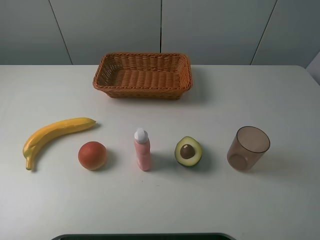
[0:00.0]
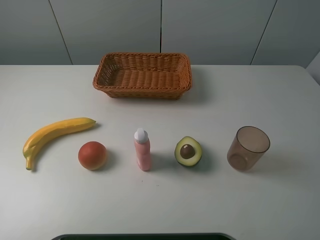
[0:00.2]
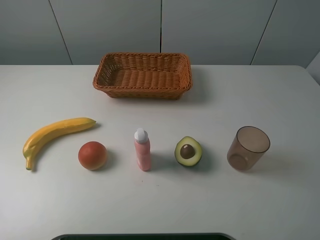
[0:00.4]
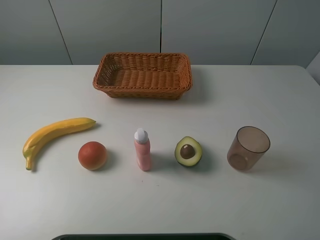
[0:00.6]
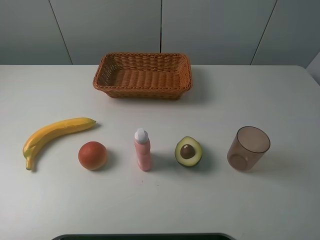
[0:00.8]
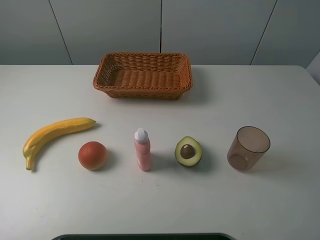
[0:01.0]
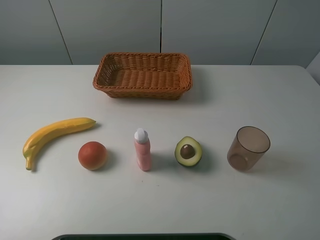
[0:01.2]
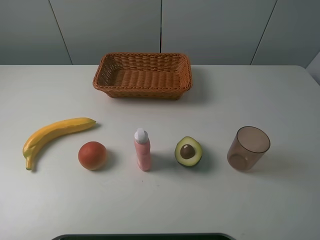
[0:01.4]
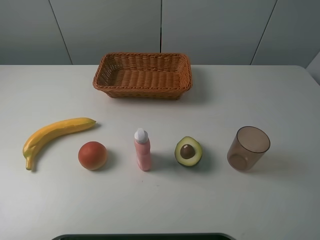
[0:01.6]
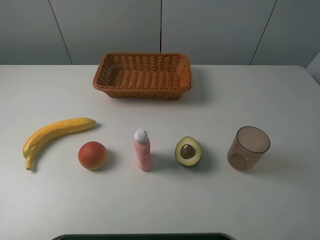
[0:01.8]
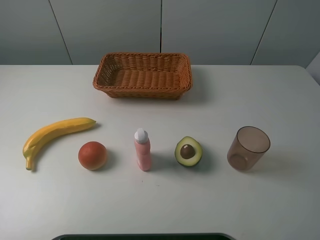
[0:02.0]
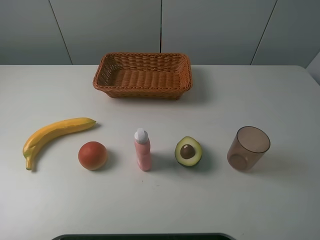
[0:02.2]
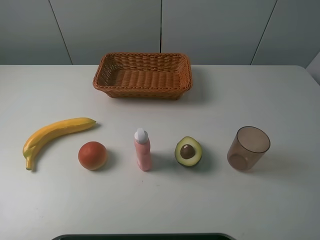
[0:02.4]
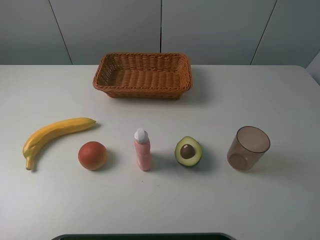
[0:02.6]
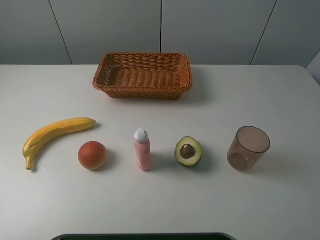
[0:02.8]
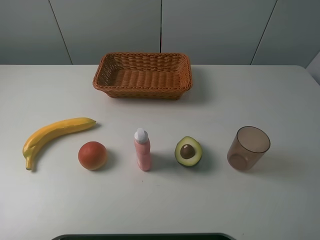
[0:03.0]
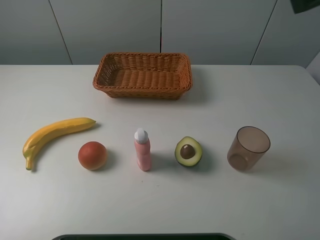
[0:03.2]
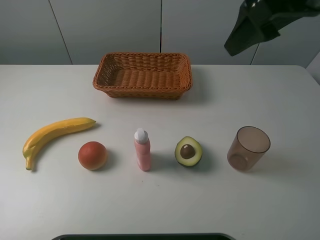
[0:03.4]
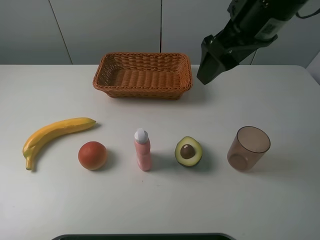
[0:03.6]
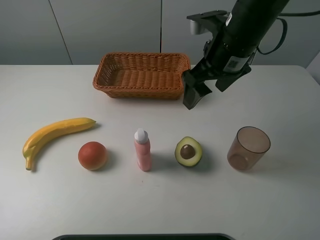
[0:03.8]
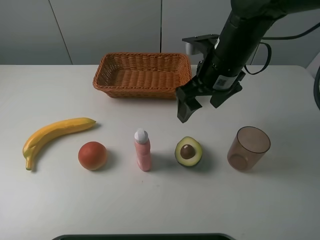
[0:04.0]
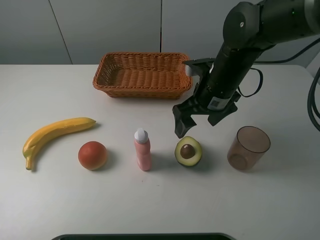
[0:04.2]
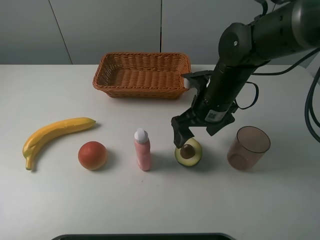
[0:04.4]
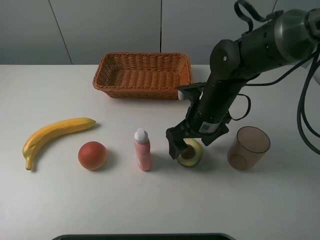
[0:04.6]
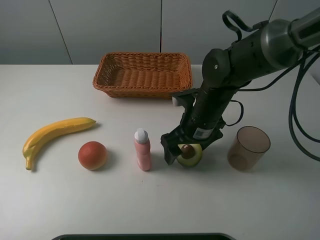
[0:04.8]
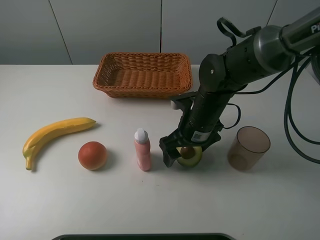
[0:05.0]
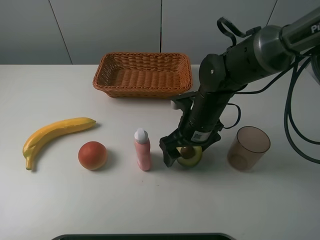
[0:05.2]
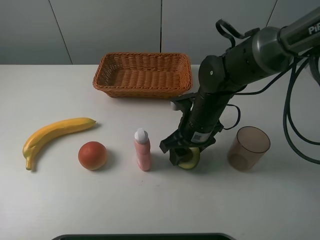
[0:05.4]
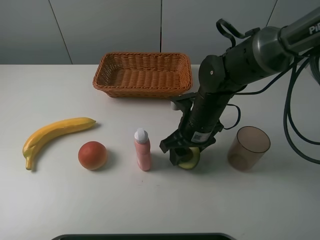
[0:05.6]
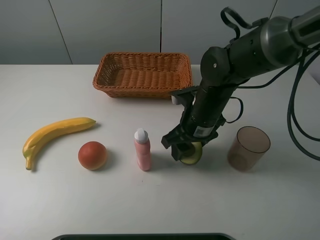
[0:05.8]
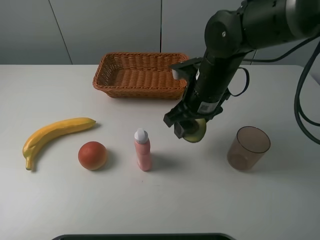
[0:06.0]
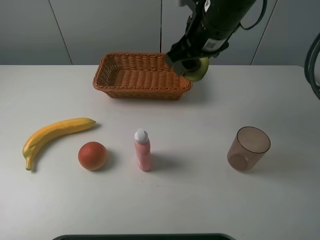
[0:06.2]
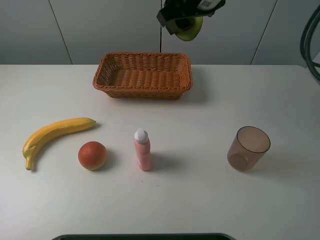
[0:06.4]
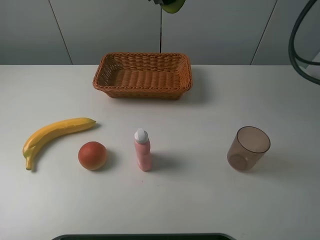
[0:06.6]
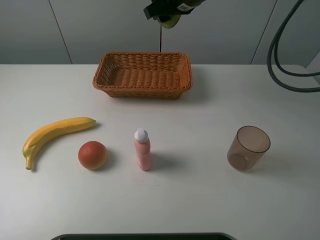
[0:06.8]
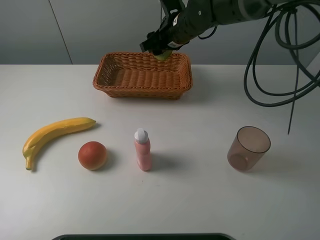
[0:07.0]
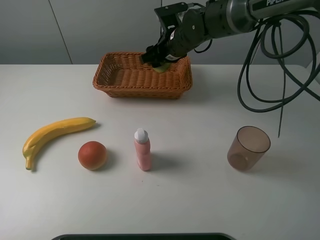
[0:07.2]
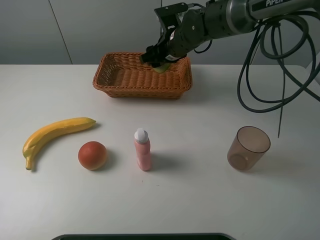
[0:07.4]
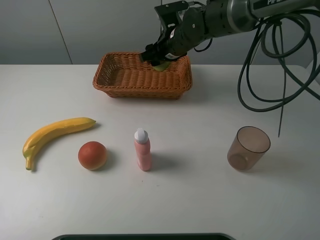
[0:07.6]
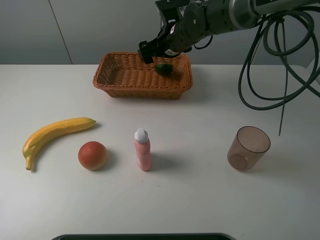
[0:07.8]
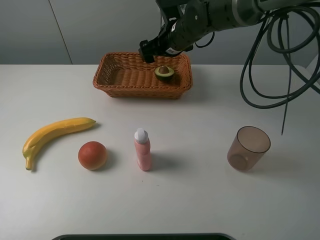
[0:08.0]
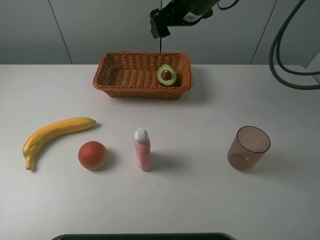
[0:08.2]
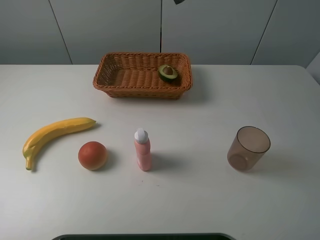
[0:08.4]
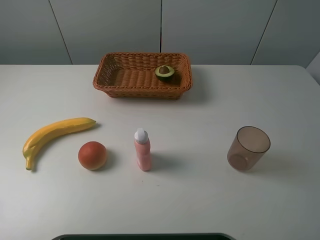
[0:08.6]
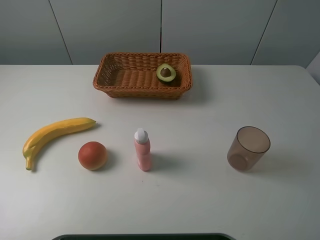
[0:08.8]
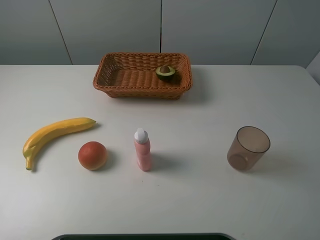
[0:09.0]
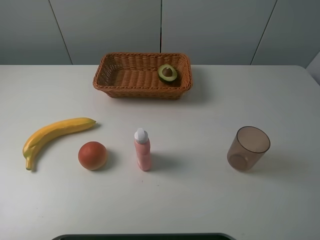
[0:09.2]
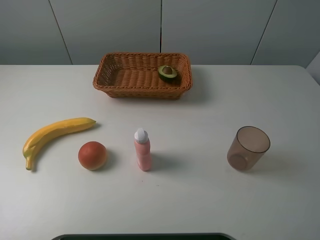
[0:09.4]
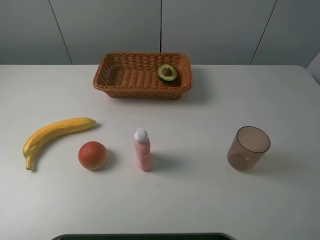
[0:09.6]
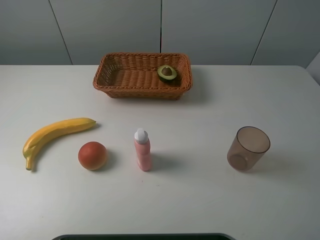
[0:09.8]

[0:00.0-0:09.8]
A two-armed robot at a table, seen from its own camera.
Task of the whole recording: randomly pick up an item from the table and put it in the basket.
Step, 0:00.0 to 0:05.4: Grasp the avocado with the right gripper.
Step, 0:05.6 to 0:08.0: Place the avocado into the basket with the right gripper.
0:00.0 to 0:01.4: Both grippers stay put.
0:02.8 to 0:04.2: The right gripper shifts approximately 35 cm downward, forward and to the left.
0:04.2 to 0:05.6: The right gripper heads downward, covering roughly 5 cm, and closes up.
0:05.6 to 0:07.0: The right gripper goes roughly 20 cm forward and upward.
0:07.0 to 0:08.4: The right gripper shifts approximately 20 cm upward and backward, and opens.

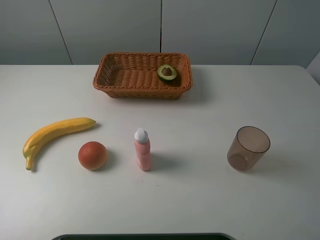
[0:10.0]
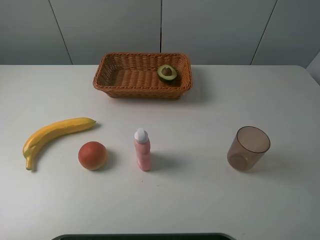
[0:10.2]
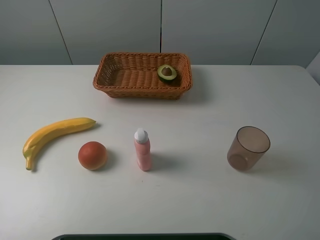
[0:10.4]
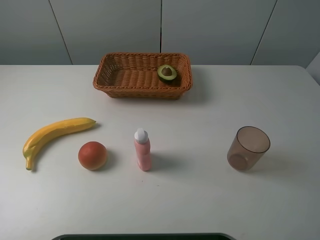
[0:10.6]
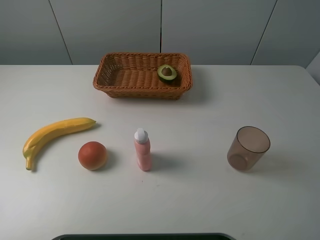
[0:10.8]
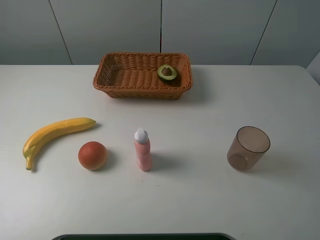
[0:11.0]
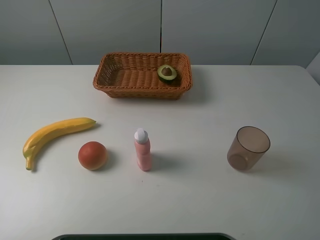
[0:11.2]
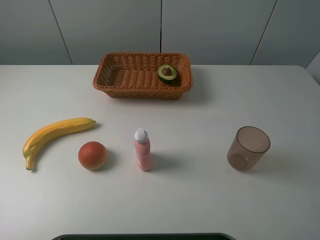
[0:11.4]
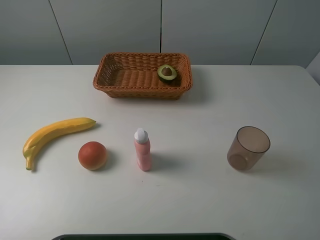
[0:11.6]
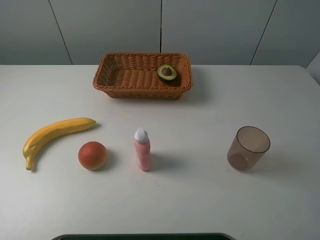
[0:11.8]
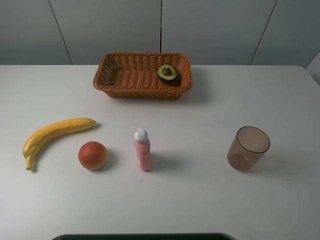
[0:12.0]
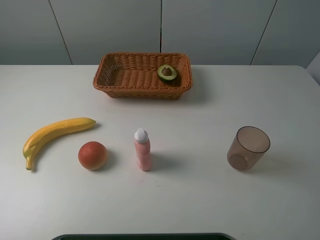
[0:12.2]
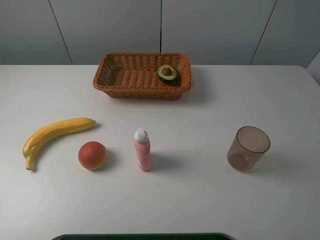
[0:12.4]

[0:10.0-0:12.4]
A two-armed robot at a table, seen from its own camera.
Task of the whole recording: randomly pick up an item from the table and put it in the basket.
0:11.2 to 0:12.4: Neither gripper changes place.
